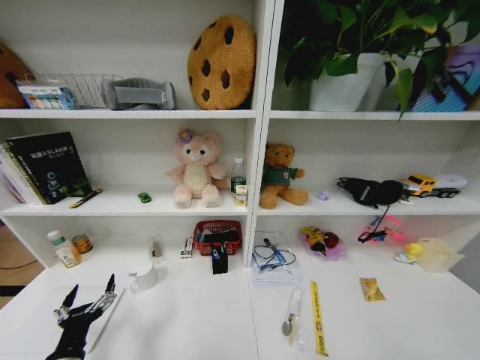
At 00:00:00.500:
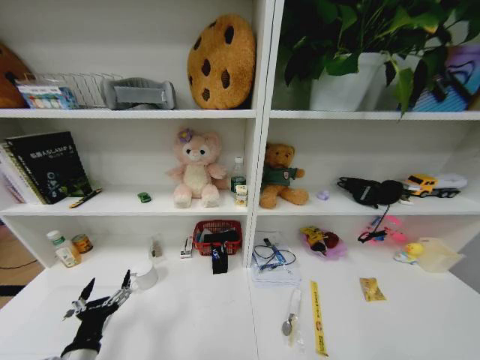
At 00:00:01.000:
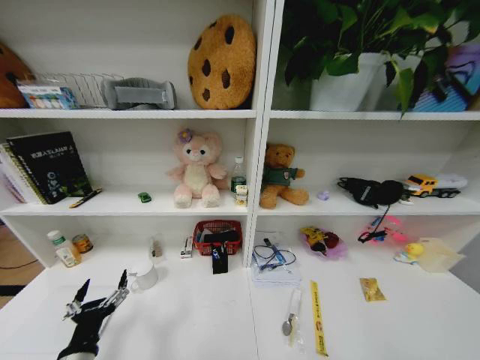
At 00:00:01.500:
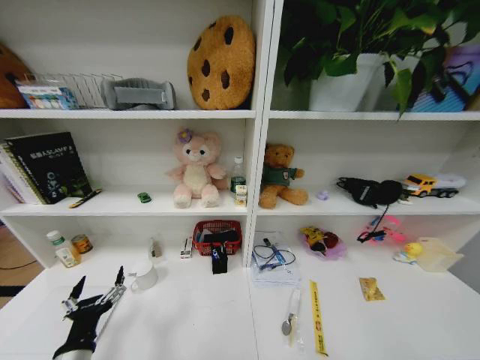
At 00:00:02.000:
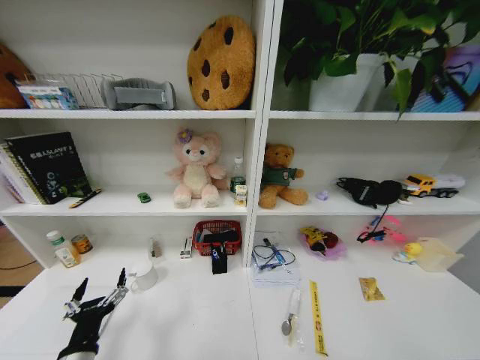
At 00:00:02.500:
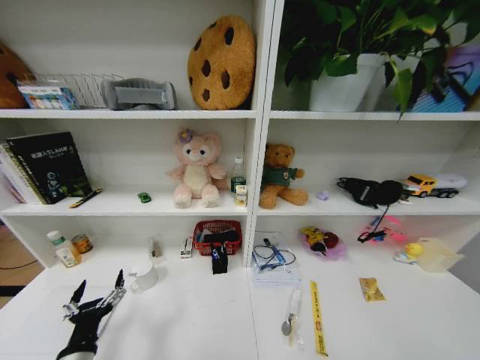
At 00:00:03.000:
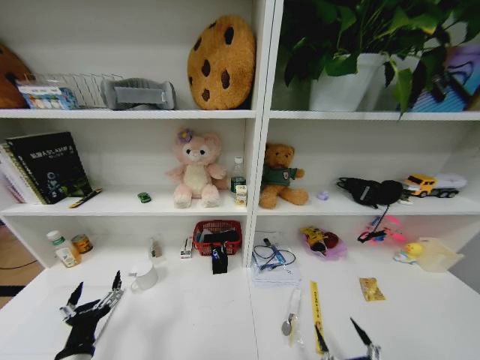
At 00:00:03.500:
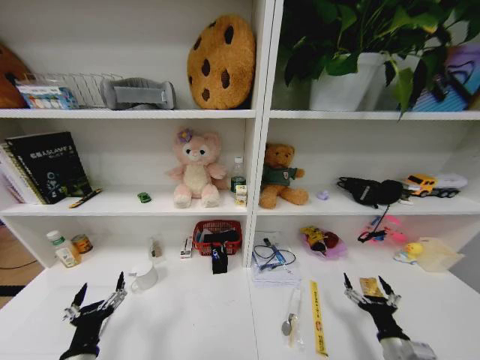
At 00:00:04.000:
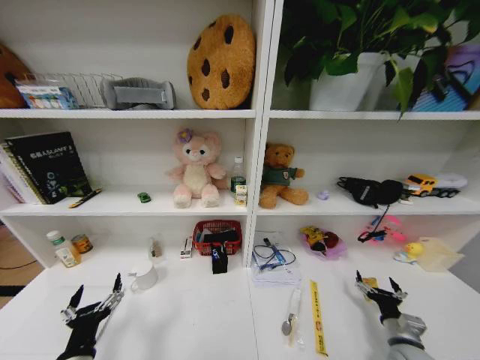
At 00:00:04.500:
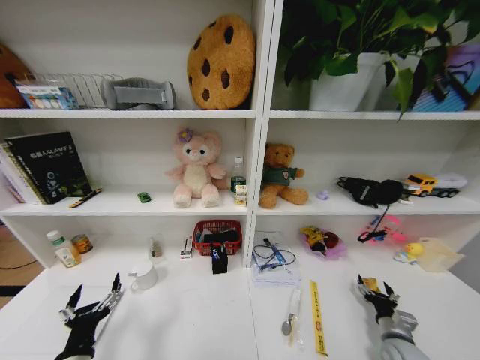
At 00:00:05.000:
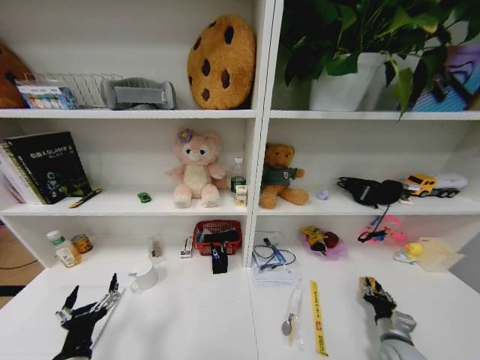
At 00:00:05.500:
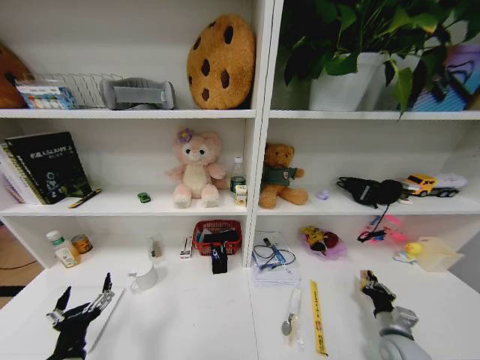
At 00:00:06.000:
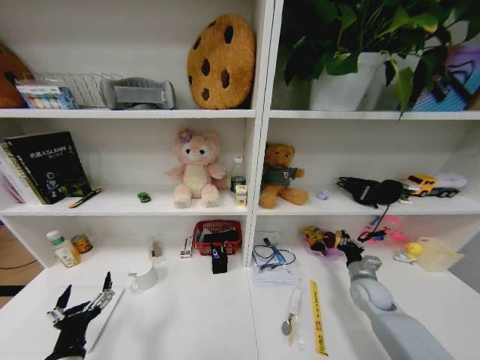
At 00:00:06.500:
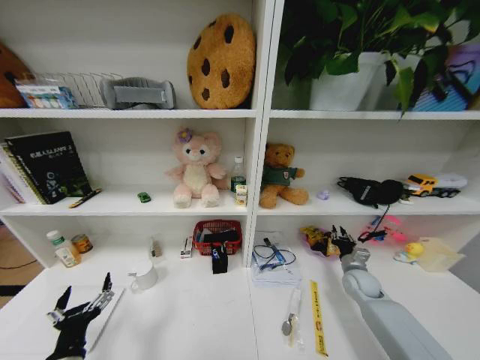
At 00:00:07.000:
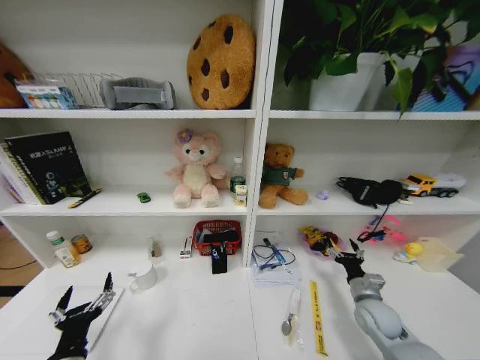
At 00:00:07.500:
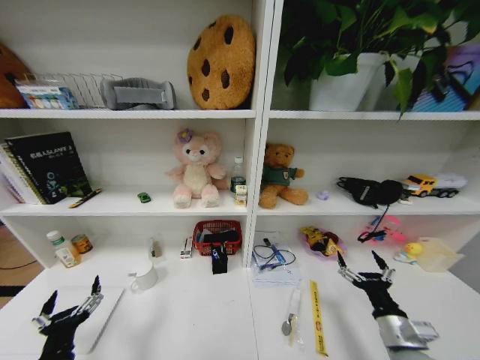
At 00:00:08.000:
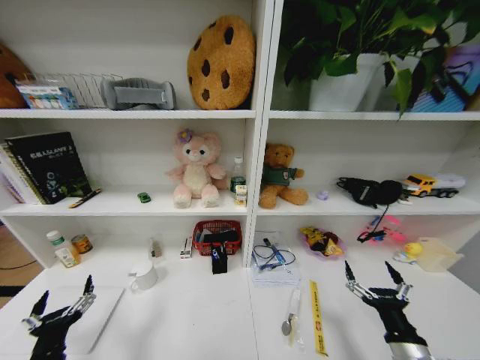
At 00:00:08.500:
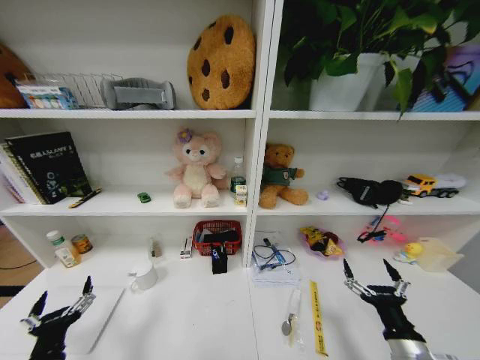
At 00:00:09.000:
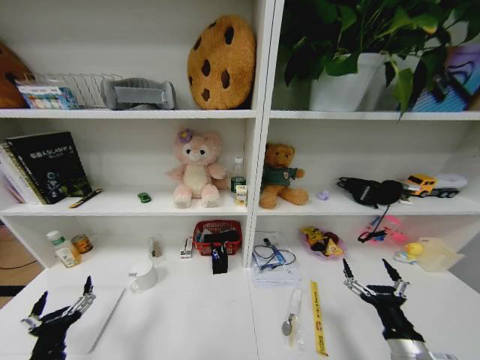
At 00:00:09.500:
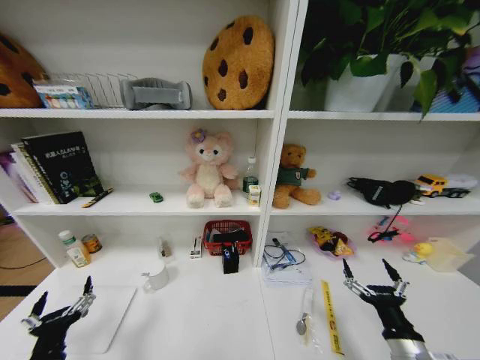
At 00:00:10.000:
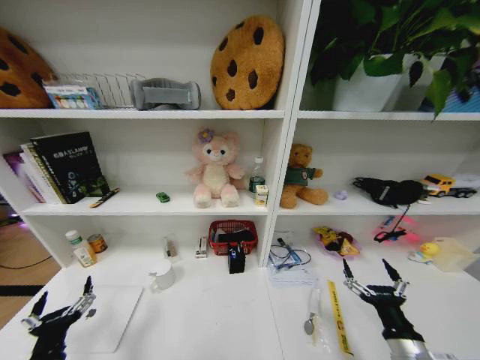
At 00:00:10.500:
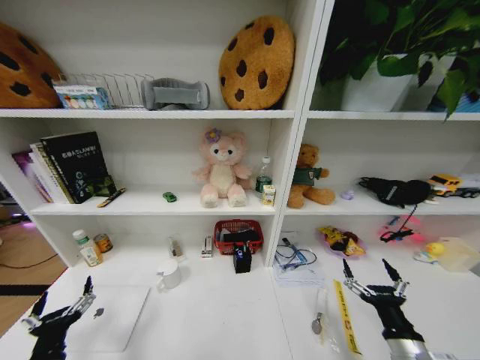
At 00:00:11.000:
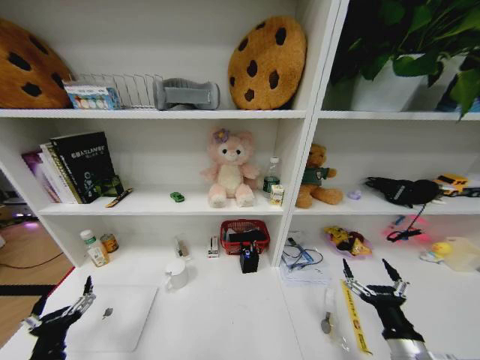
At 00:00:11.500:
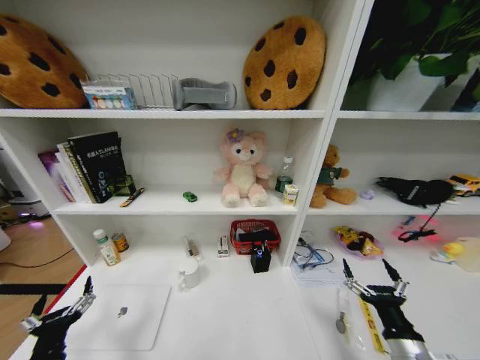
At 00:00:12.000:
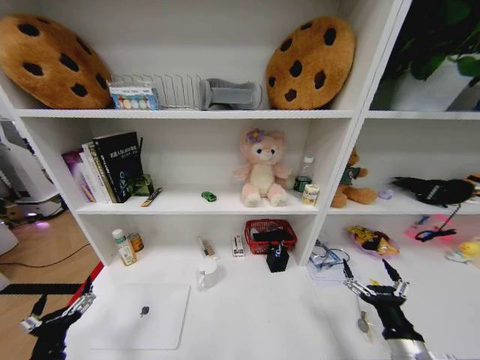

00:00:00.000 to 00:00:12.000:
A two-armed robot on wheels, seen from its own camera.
Task of the whole recording: Organize the objects on the table.
00:00:02.000 to 00:00:04.000: The right gripper goes some 35 cm forward.
00:00:04.000 to 00:00:06.000: The right gripper heads forward, covering roughly 15 cm, and closes.
00:00:06.000 to 00:00:08.000: The right gripper goes approximately 20 cm backward, and opens up.
